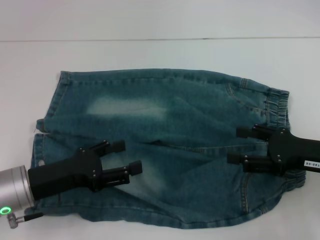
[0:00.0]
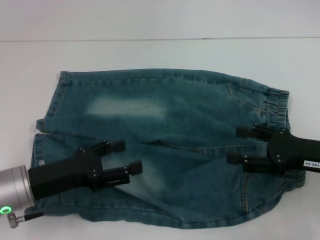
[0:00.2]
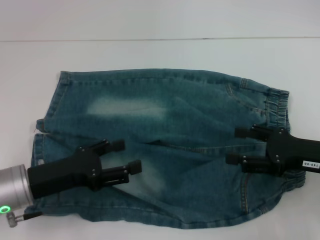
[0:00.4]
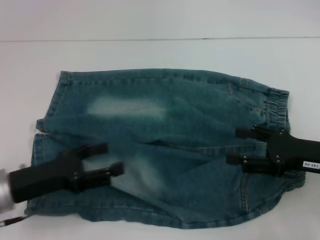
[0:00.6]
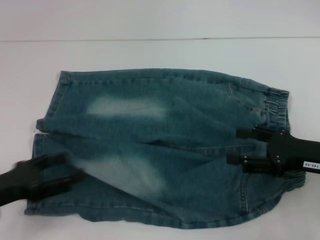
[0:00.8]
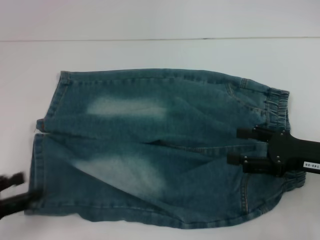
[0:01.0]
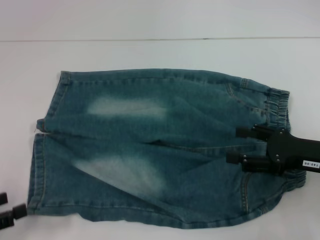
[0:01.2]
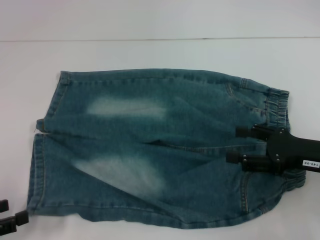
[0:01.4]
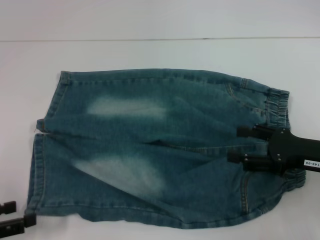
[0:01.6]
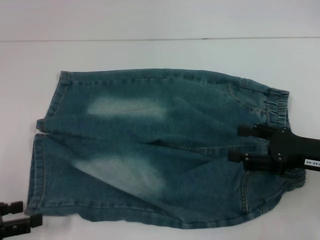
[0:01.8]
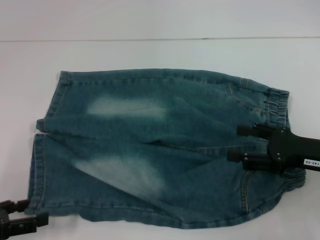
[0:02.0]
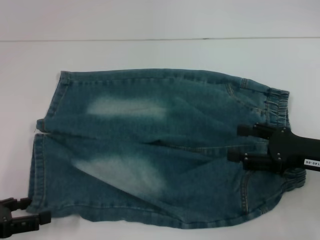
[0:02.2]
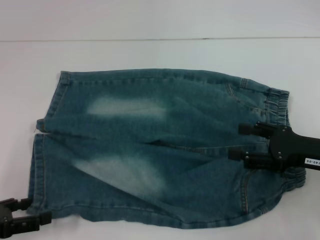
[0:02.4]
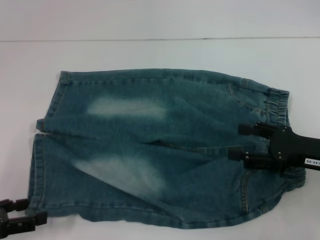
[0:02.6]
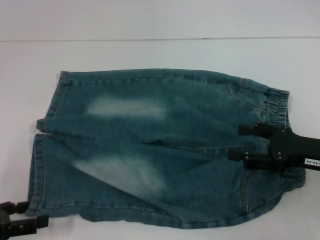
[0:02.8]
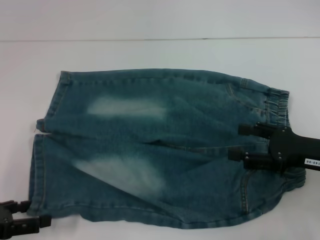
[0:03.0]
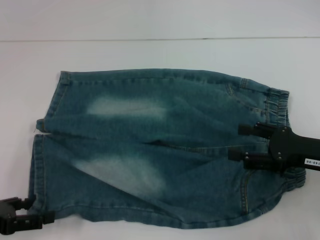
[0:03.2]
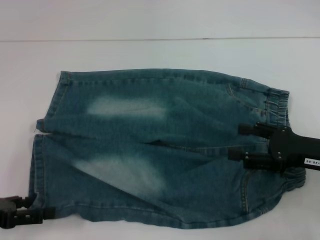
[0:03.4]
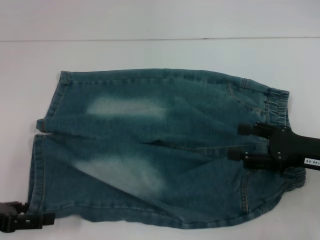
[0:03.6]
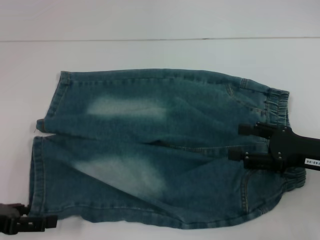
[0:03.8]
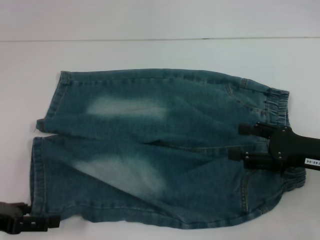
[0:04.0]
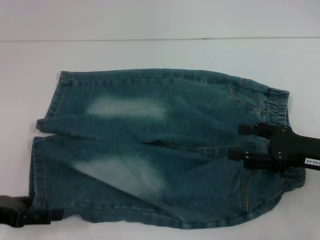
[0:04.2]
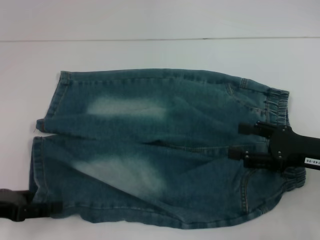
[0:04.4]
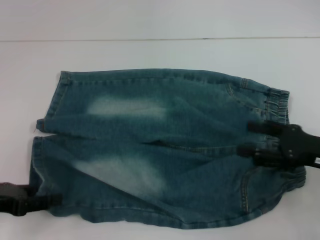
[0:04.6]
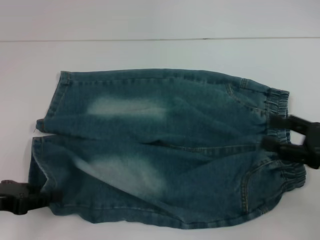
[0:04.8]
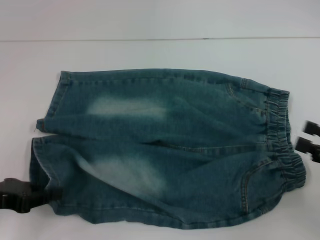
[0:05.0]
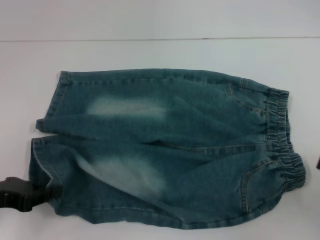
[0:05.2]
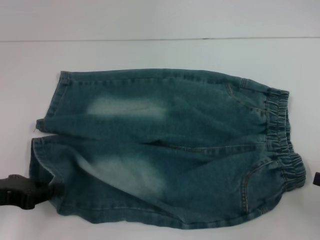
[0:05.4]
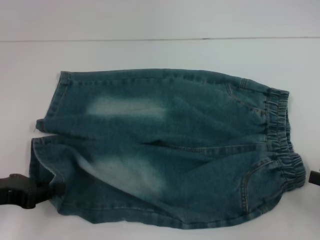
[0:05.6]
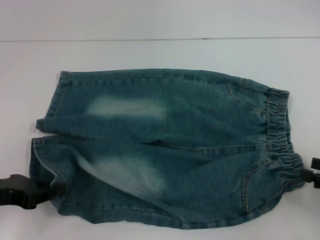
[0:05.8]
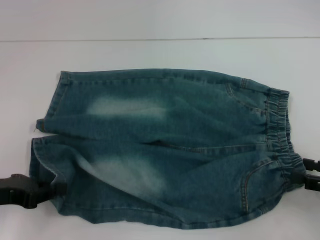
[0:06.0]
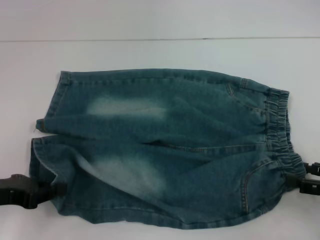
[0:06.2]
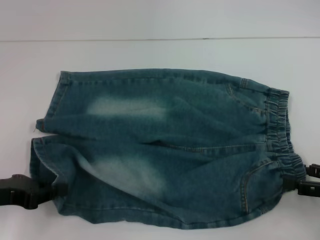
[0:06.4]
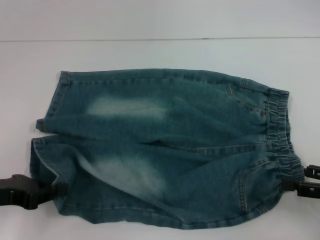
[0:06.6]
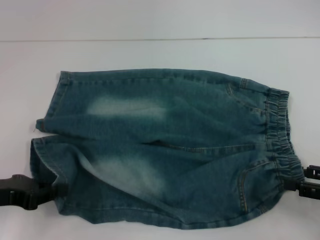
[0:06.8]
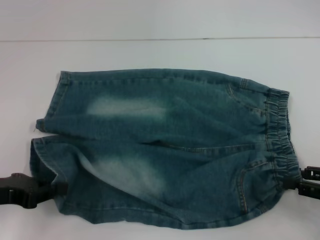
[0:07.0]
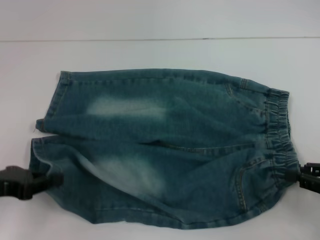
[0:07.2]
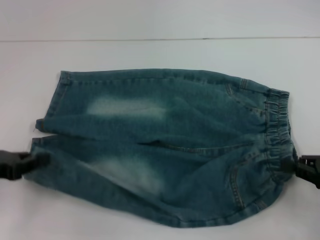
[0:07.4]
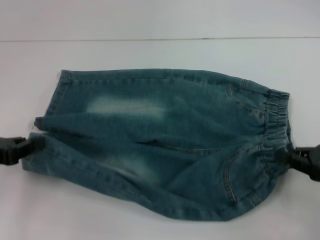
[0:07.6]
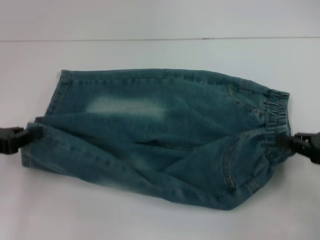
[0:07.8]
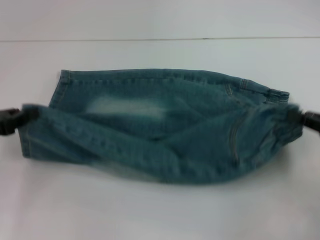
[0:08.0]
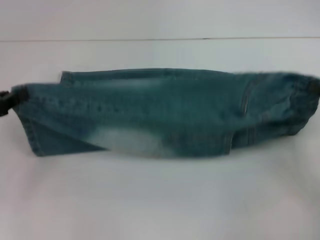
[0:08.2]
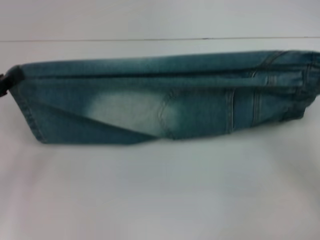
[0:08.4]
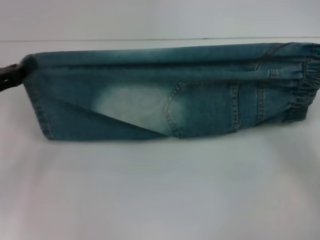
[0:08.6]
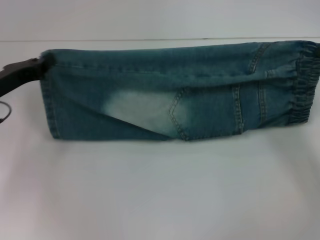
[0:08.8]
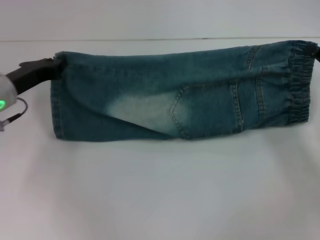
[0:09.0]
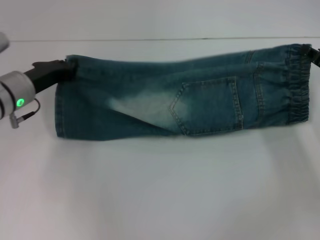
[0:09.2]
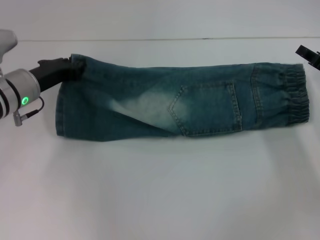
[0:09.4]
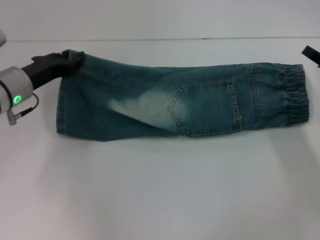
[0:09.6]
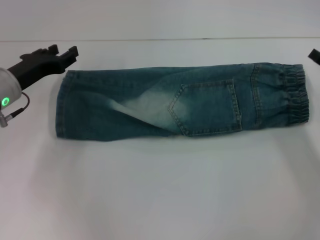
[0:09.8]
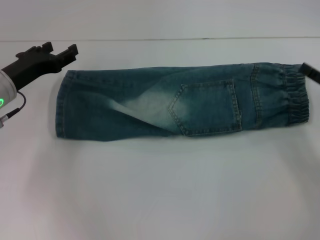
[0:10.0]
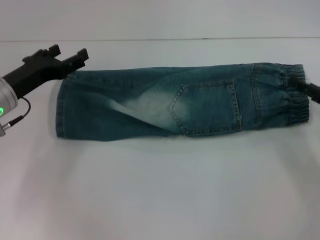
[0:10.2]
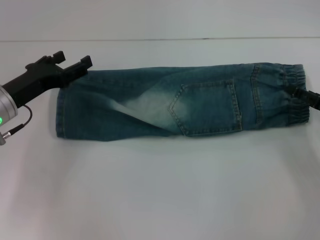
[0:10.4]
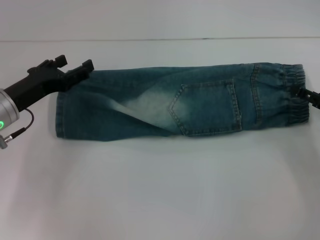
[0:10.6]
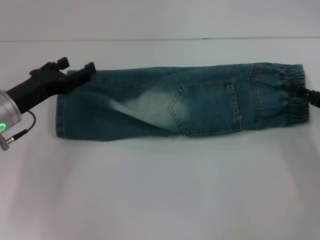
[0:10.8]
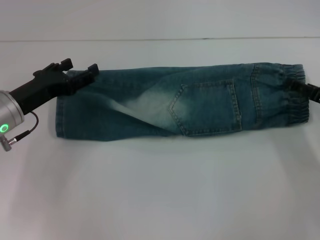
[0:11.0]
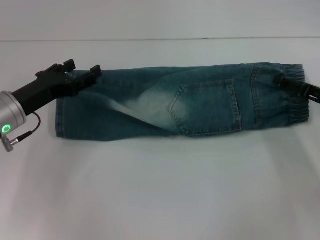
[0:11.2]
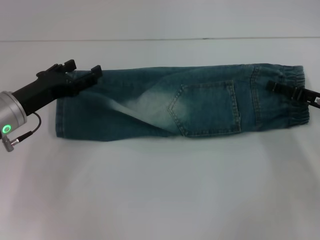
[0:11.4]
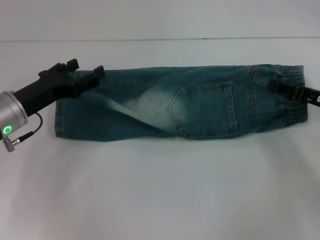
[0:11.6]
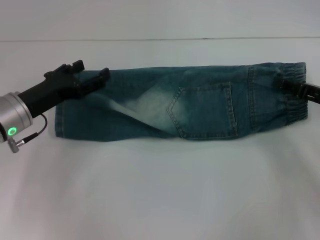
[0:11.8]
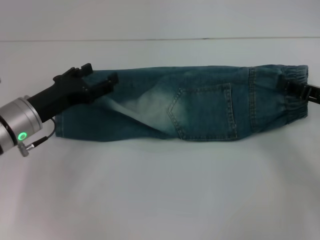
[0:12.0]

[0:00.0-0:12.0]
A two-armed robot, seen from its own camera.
Step, 0:00.0 to 0:04.8: Grab the lower left pant leg with your left hand.
Step, 0:05.2 to 0:07.2: Hold the lower right waistband with your right hand.
Step, 0:07.4 to 0:09.2: Fold upward with your right hand.
Step, 0:09.4 to 0:09.6: Fold upward with your left hand.
Step, 0:09.8 to 0:12.0: Grab the waistband with your right hand.
0:00.0 to 0:01.6: The left gripper moves to the left and backward, about 15 cm.
0:01.6 to 0:03.0: The grippers stay close to where they were, moving slightly.
0:03.0 to 0:04.4: There are only small adjustments of the grippers.
0:04.4 to 0:06.0: The left gripper closes up, while the right gripper goes roughly 10 cm to the right.
0:06.0 to 0:07.6: The right gripper closes its fingers.
0:07.6 to 0:09.0: The right gripper is displaced forward by roughly 10 cm. The left gripper goes approximately 15 cm forward and to the right.
0:09.0 to 0:10.4: The right gripper opens its fingers; the left gripper opens up.
0:10.4 to 0:12.0: The right gripper closes its fingers.

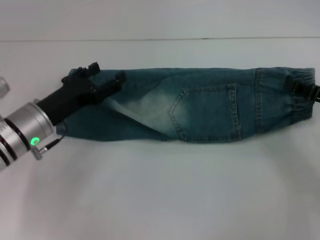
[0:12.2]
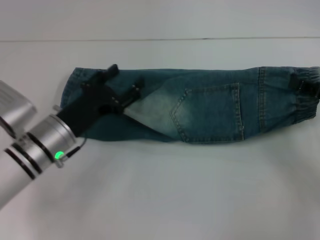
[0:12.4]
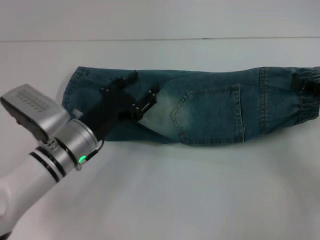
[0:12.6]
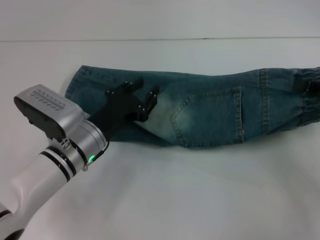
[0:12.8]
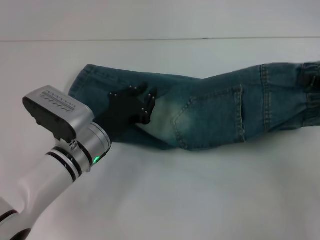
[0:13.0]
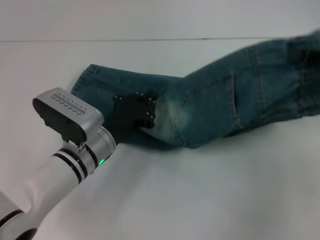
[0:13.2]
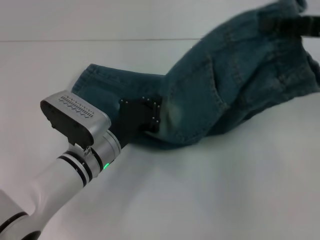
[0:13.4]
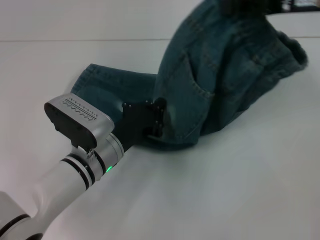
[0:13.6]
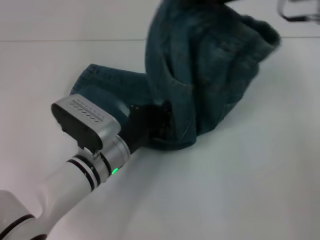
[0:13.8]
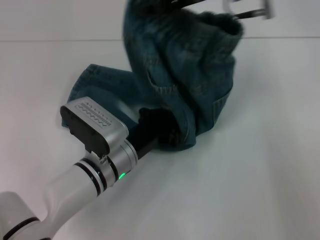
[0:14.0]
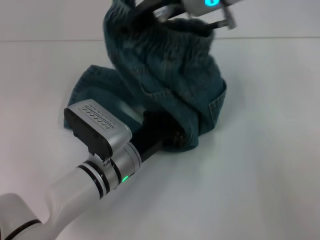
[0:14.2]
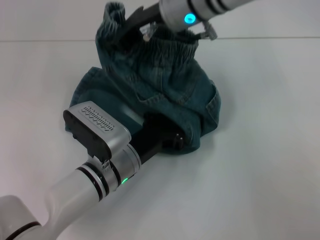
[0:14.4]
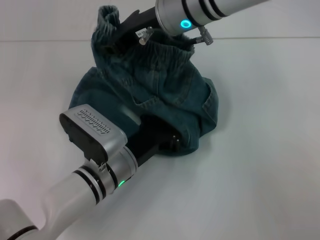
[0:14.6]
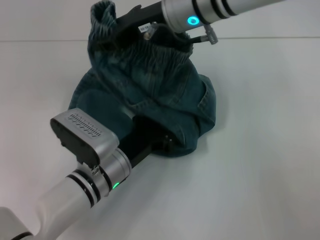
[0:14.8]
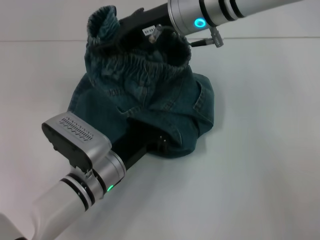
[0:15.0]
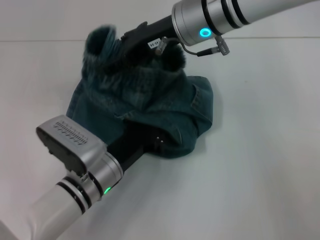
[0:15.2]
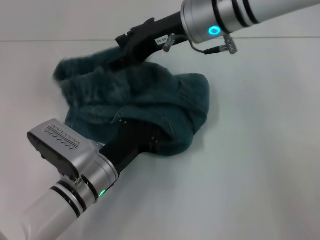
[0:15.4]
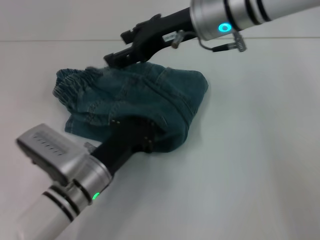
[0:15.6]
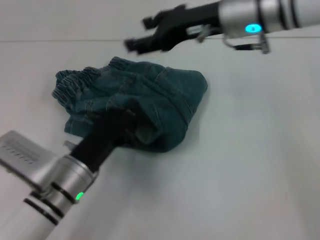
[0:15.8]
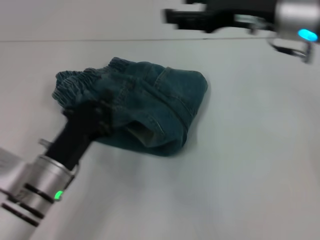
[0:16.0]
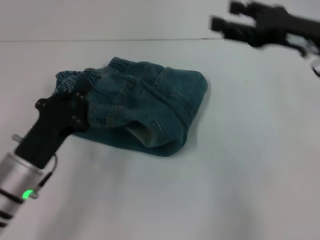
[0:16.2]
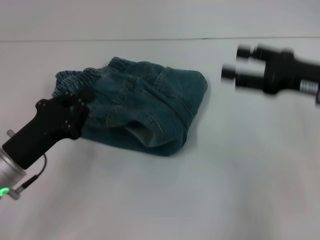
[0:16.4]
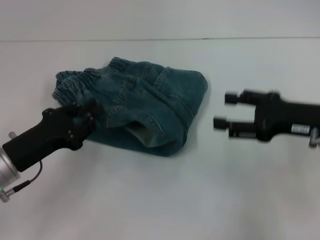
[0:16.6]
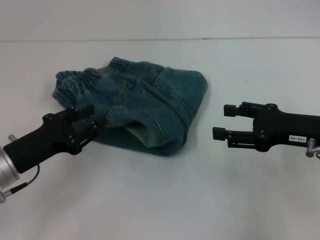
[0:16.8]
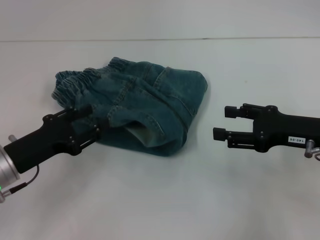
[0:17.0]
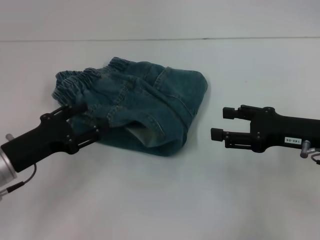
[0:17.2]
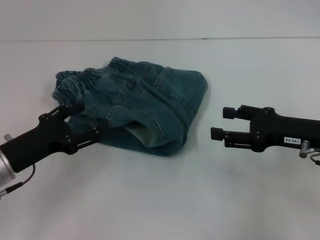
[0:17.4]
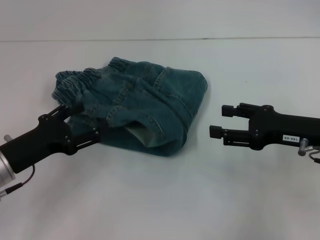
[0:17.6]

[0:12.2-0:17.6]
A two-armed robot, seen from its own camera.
Step, 0:12.2 to 0:15.4: Fold to the left with your right hand.
0:12.2 to 0:13.6: The right gripper is displaced upward, to the left and forward by roughly 20 cm, while the left gripper moves to the right, some 10 cm, and closes up.
0:13.6 to 0:15.0: The right gripper moves to the left, roughly 20 cm, and opens up.
0:15.0 to 0:16.2: The right gripper heads to the right, covering some 20 cm, and opens, while the left gripper is displaced to the left by roughly 10 cm.
0:16.2 to 0:17.6: The left gripper shifts by some 5 cm, and opens its fingers. The right gripper travels downward and backward by some 10 cm.

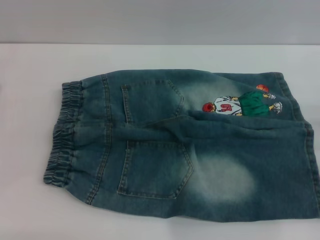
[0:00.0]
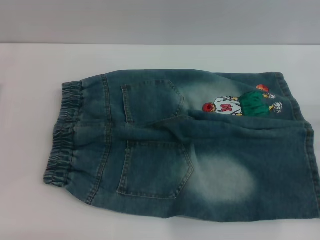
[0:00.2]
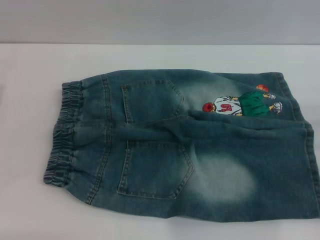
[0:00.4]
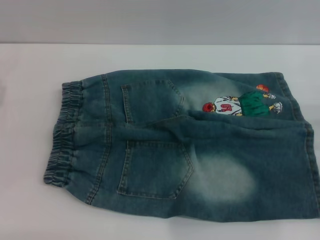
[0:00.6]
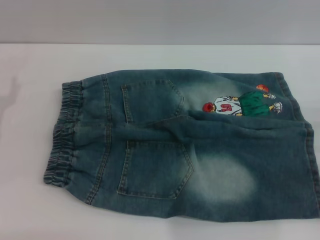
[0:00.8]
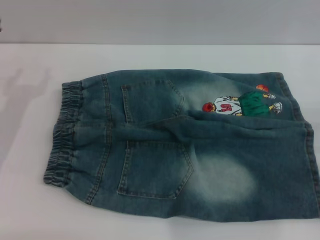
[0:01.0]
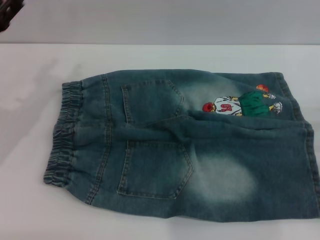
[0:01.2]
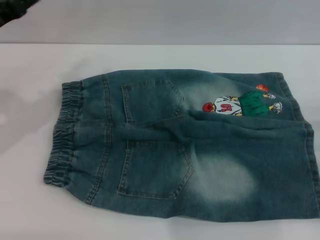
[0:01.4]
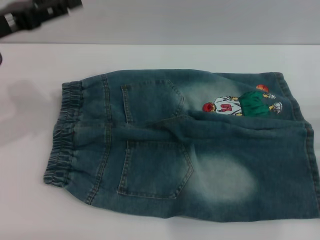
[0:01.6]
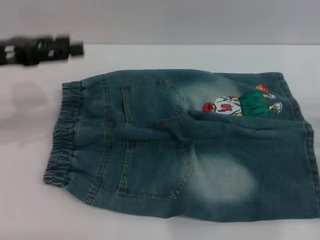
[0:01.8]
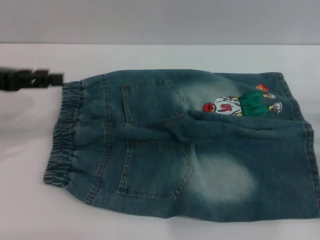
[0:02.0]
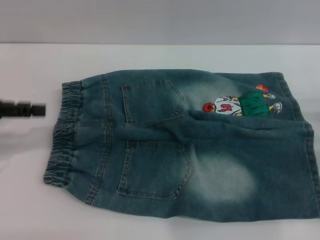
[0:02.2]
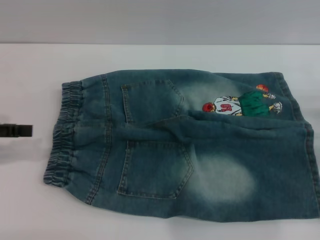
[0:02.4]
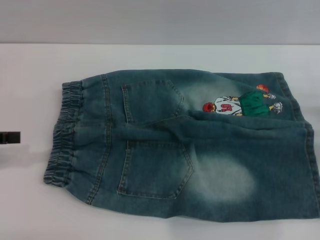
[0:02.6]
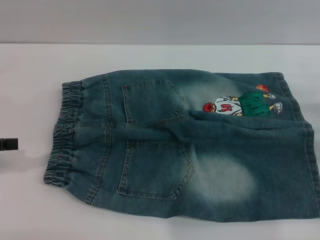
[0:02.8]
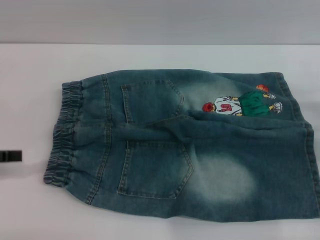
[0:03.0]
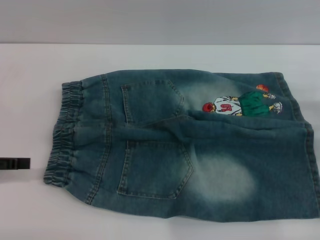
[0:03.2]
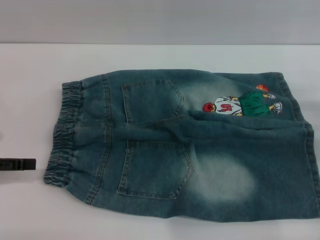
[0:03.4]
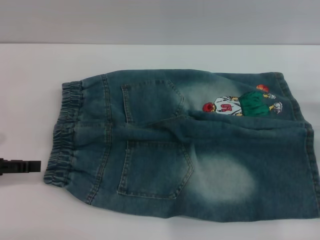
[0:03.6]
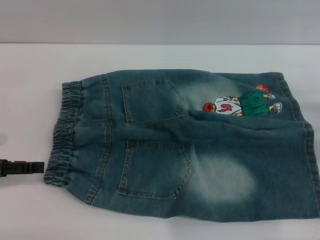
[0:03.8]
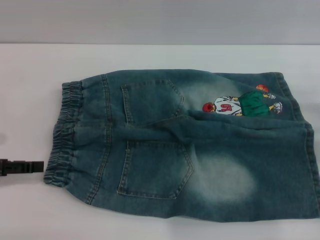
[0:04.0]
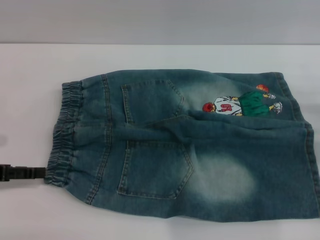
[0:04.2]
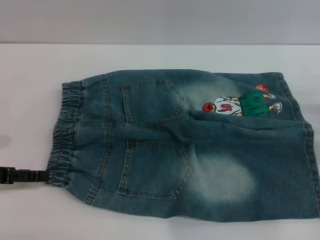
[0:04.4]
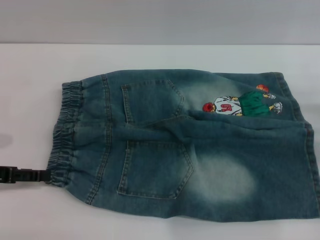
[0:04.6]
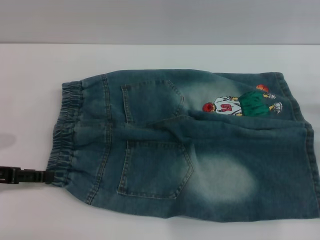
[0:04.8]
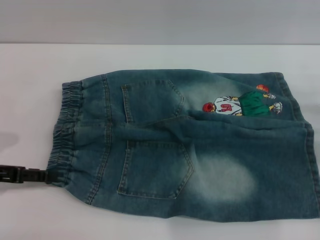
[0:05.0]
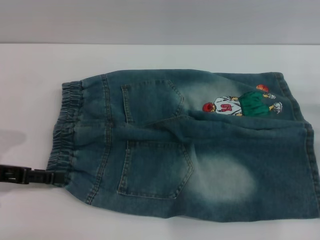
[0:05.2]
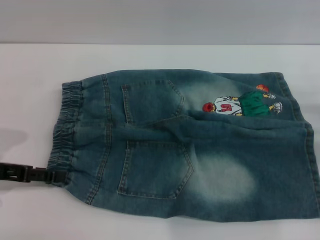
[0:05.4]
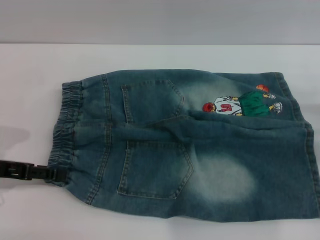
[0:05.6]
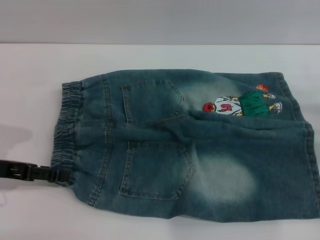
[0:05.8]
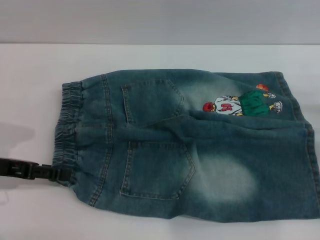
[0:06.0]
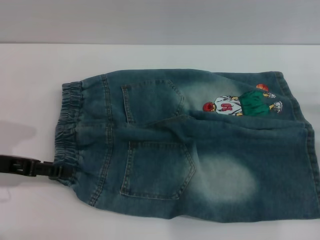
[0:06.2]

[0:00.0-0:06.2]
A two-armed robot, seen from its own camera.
0:00.0 to 0:01.6: The left gripper goes roughly 15 cm upward and to the right.
0:01.6 to 0:03.2: The left gripper shifts approximately 15 cm backward, to the left and downward.
0:03.2 to 0:04.6: The grippers move only a little.
0:04.6 to 0:06.2: The grippers stay close to where they were, moving slightly.
